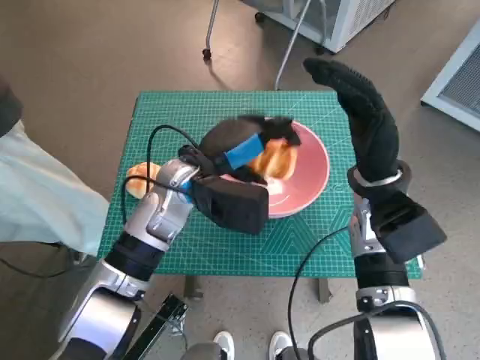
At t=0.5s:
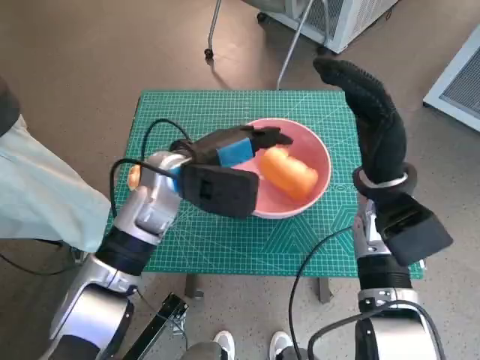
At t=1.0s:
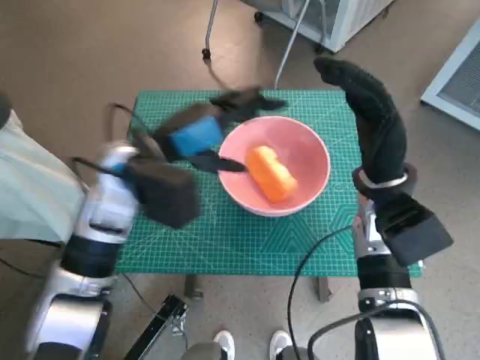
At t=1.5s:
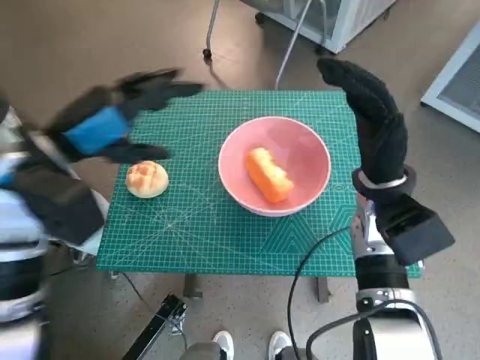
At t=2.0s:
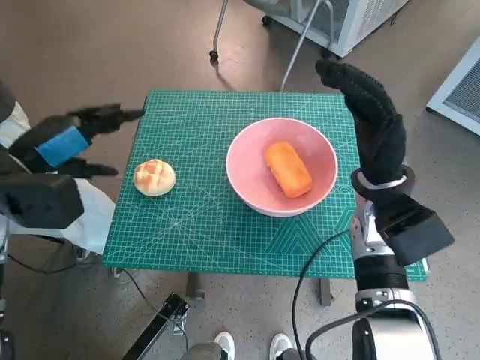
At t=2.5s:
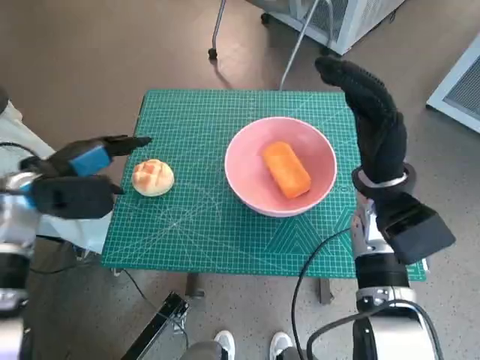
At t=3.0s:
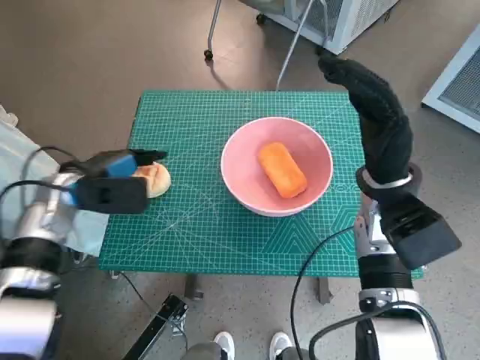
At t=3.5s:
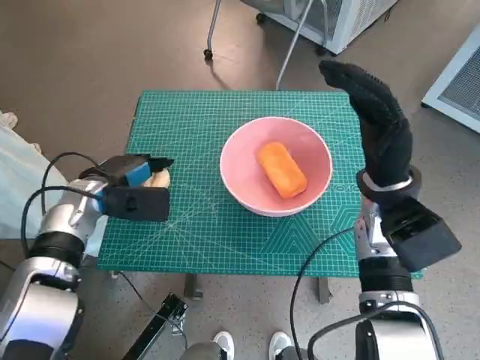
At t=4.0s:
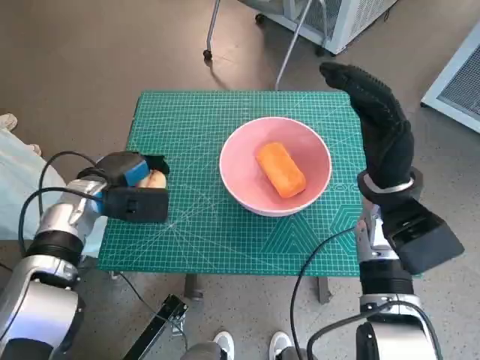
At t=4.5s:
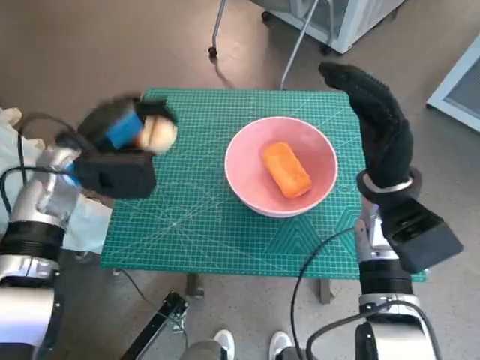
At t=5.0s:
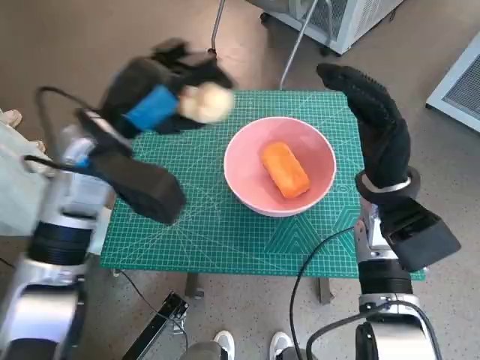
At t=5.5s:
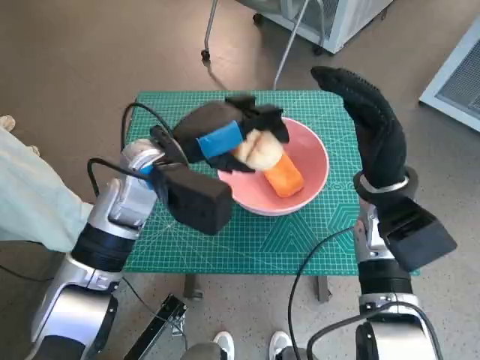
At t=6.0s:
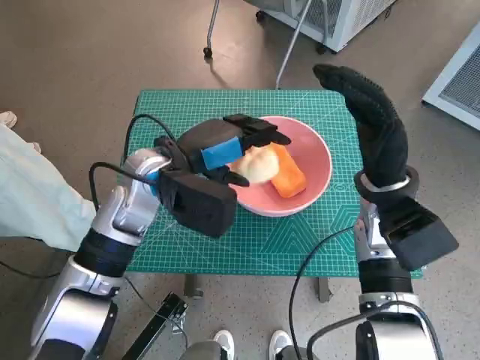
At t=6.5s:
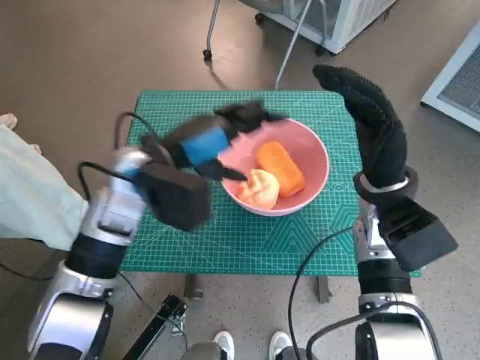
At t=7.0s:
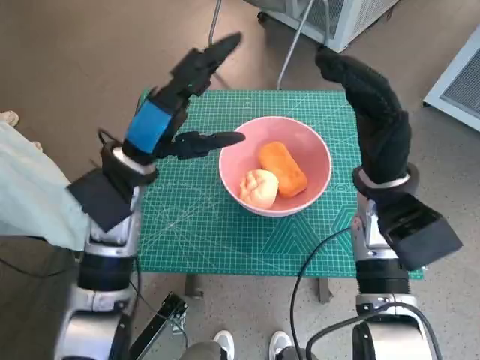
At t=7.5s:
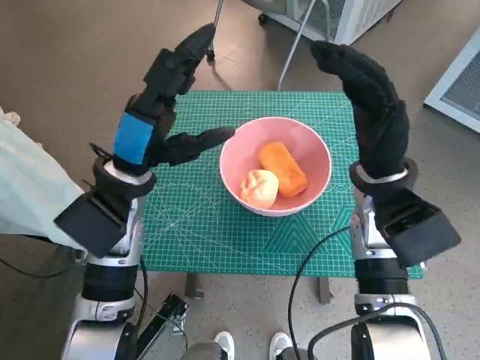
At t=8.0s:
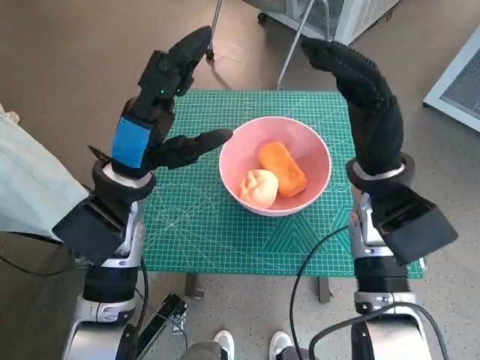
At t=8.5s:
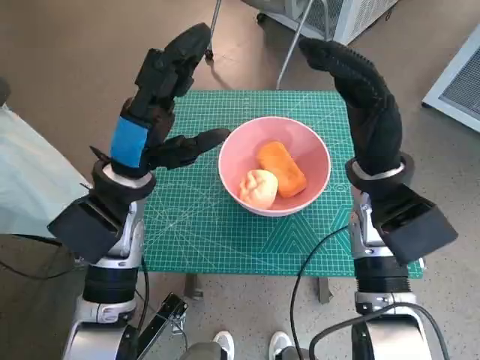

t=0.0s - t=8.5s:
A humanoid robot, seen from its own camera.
Task of the whole recording: Push the bowl to the center of the table and put the bread into the bowl.
Step, t=1.0s - t=3.5s: Grasp the round bread with left hand.
Step, t=4.0s - t=6.0s: Place the round bread in pink bowl with left hand.
t=0.0s - t=2.0s: The left hand shifts some 20 cm to the left.
t=2.0s - t=4.0s: The left hand is displaced downward and forward by about 15 cm.
t=4.0s - t=6.5s: The left hand goes roughly 15 cm to the right and upward.
